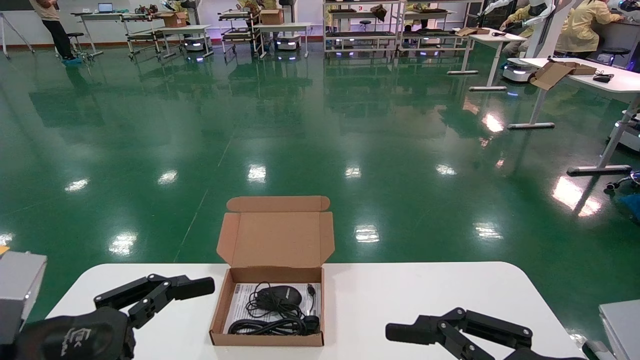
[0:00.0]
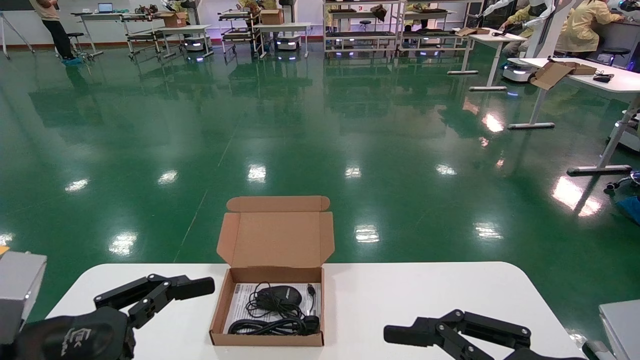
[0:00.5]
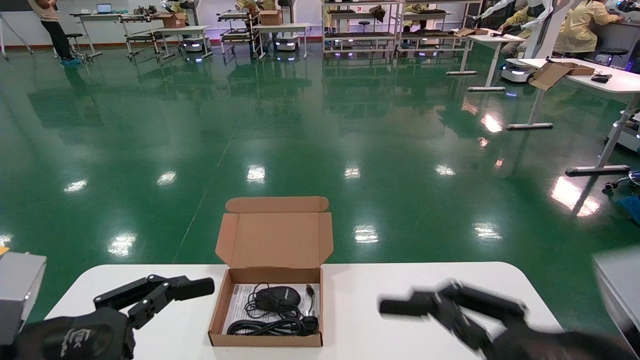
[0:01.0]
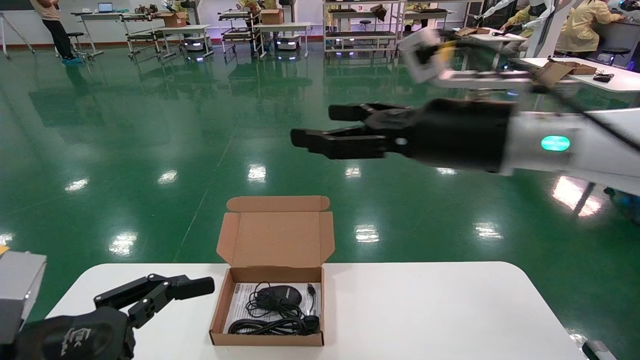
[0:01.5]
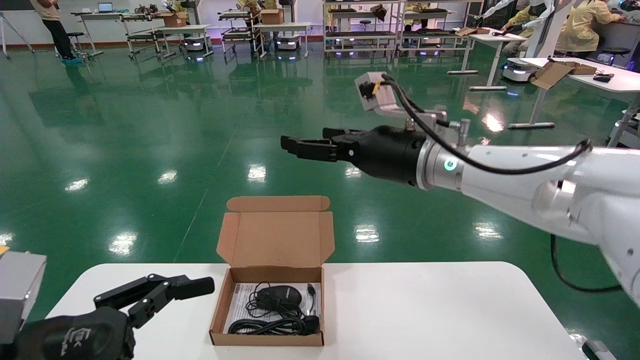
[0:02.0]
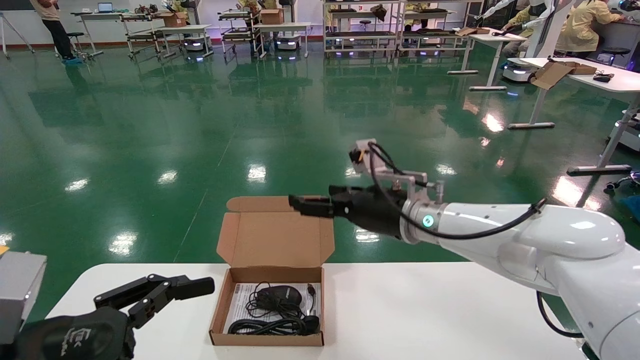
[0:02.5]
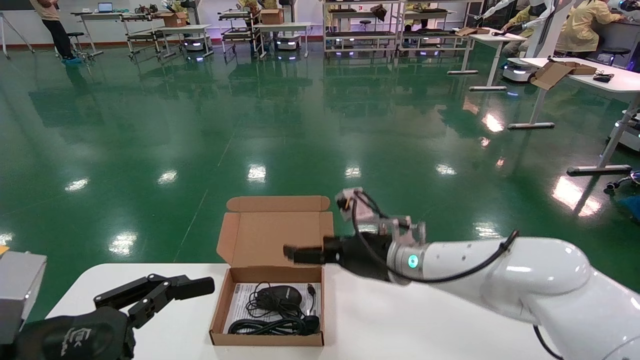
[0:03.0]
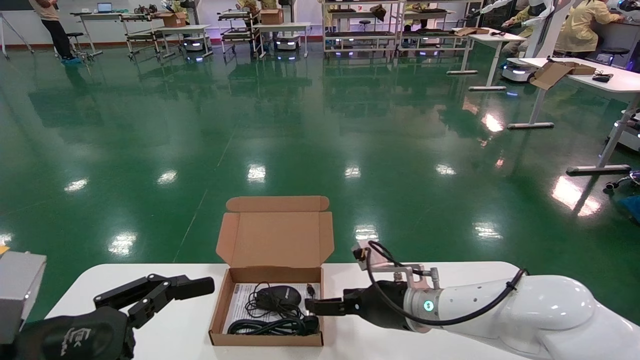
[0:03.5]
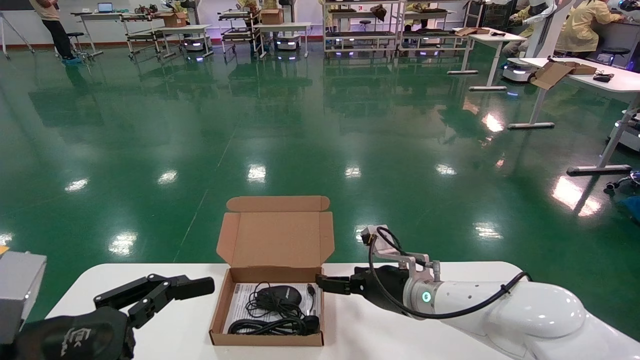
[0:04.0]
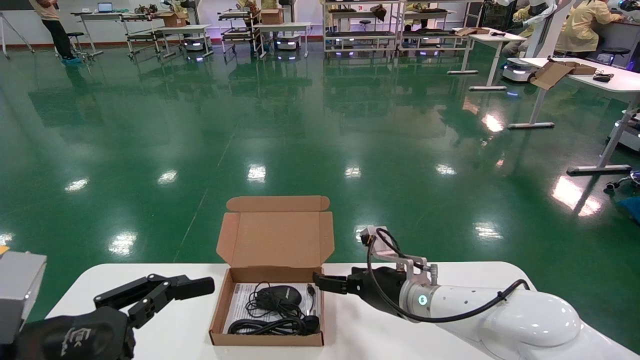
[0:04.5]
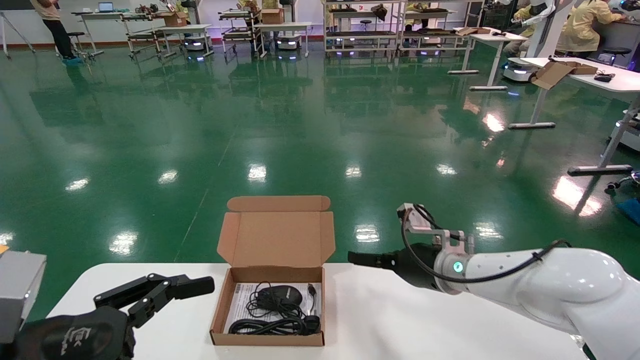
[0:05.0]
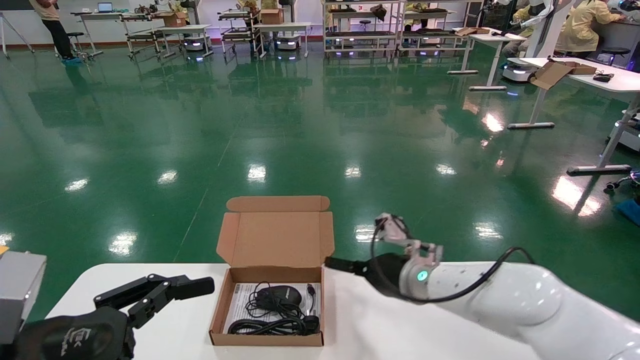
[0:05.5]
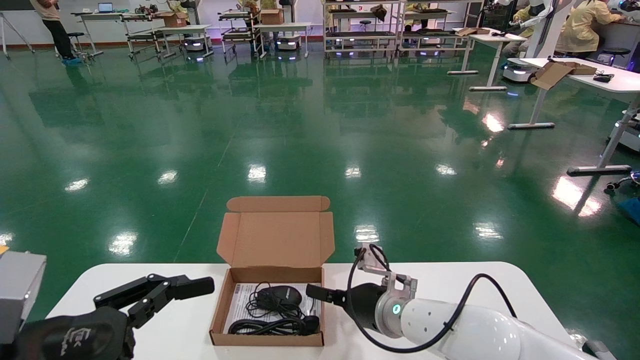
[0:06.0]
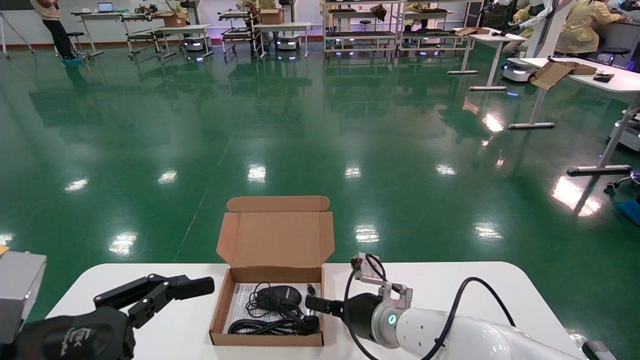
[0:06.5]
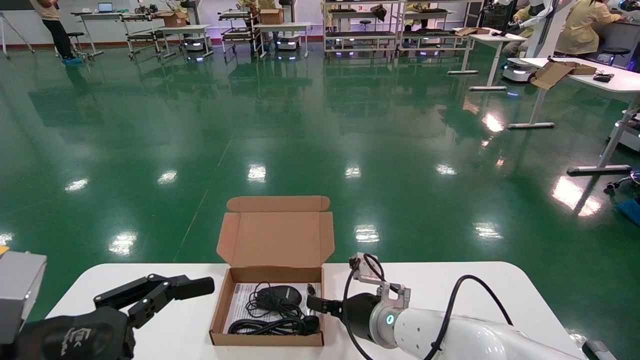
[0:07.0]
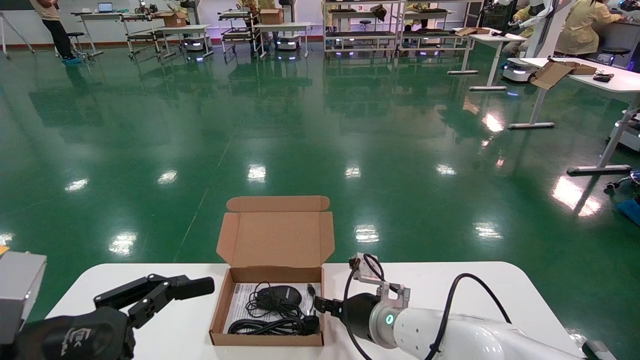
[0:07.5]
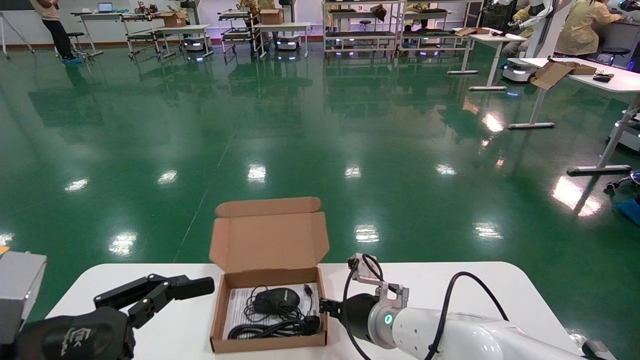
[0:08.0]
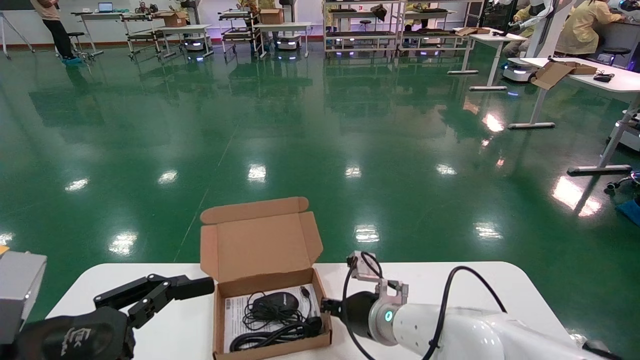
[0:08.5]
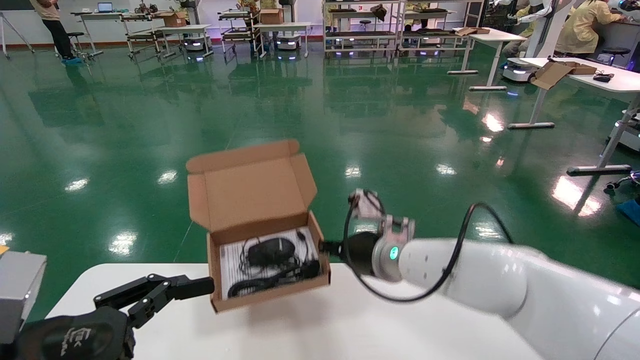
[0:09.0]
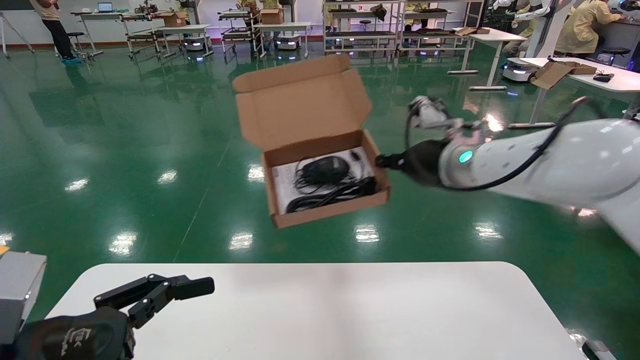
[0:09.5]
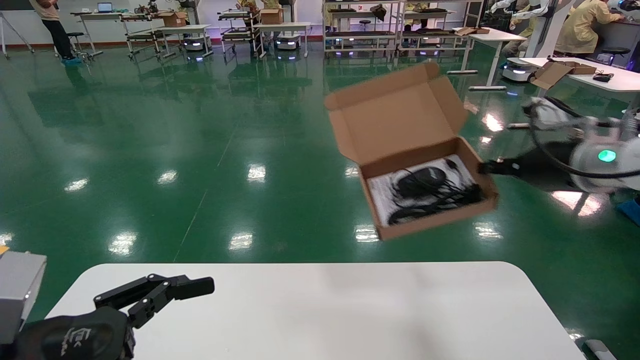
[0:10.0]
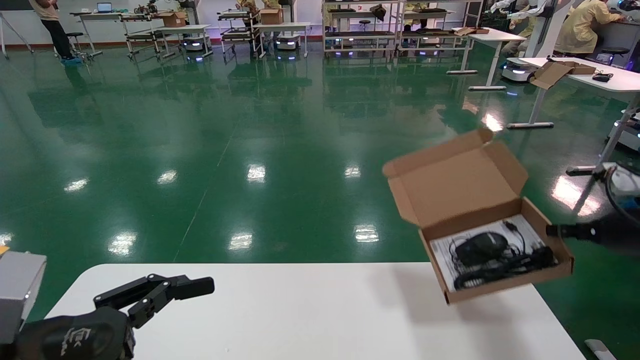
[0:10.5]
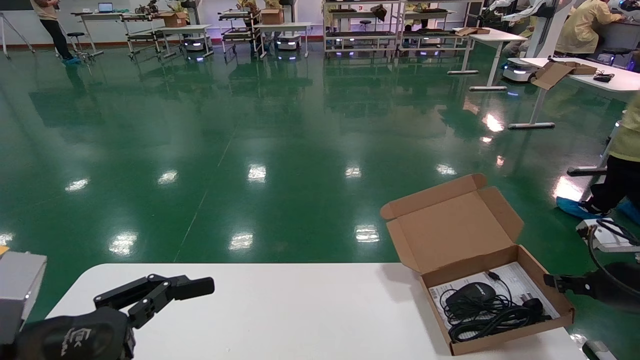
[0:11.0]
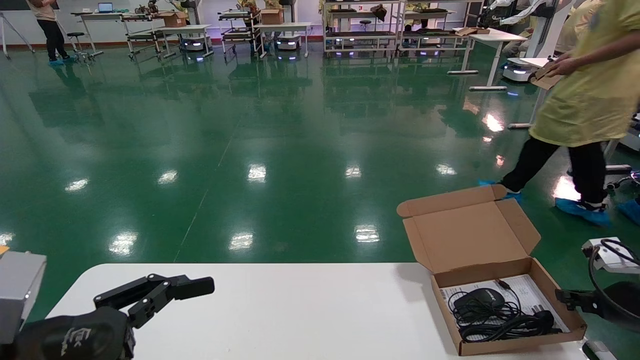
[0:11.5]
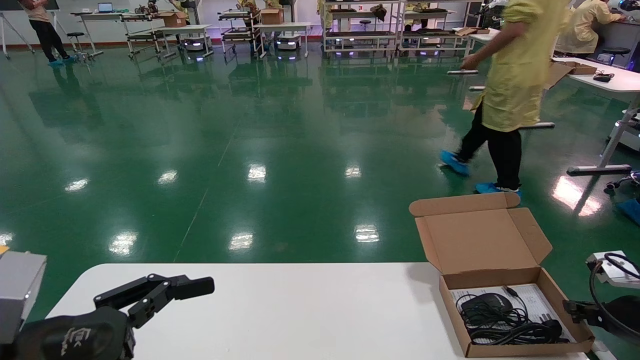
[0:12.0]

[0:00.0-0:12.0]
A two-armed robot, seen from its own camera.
Task of the whole recording: move the position of the storage box with accessories on the table.
Step, 0:01.5 to 0:07.5: Grab and pick up the open mouse box from the accessory packaging area.
0:00.0 to 0:02.0: The right gripper travels forward, upward and to the left by approximately 30 cm.
0:02.0 to 0:04.0: The right gripper is displaced downward by some 20 cm.
0:06.0 to 0:08.0: The right gripper closes its fingers.
0:08.0 to 0:10.0: The right gripper heads to the right and upward, covering roughly 35 cm.
0:10.0 to 0:12.0: The right gripper moves downward and to the right, approximately 25 cm.

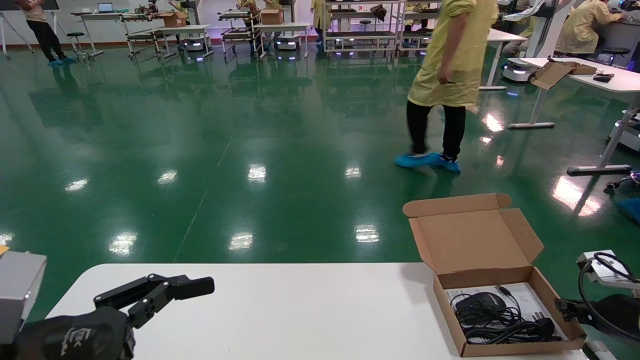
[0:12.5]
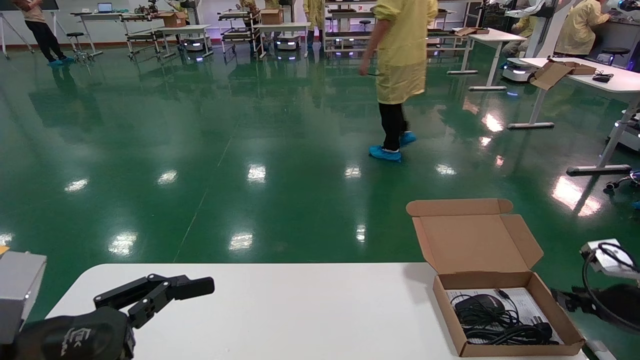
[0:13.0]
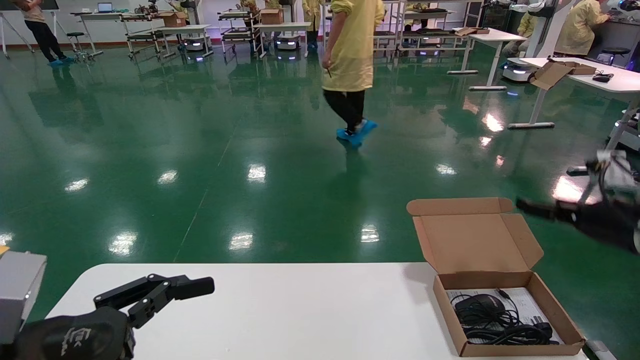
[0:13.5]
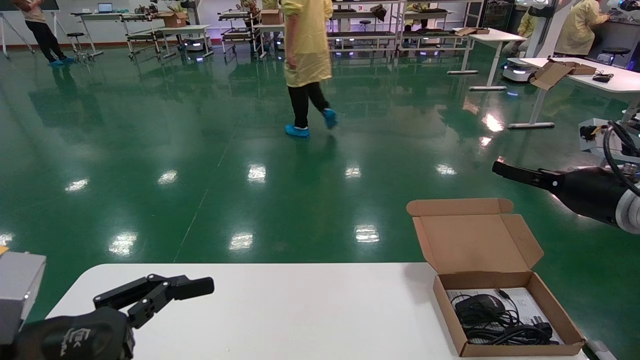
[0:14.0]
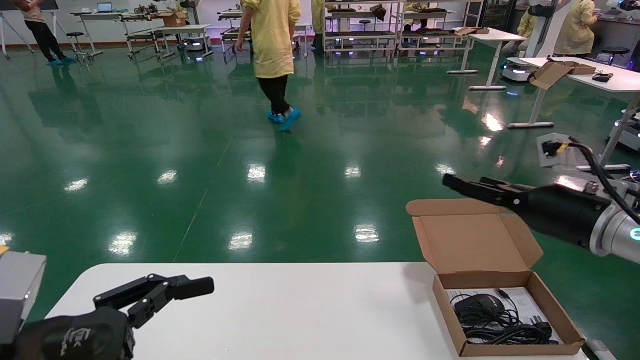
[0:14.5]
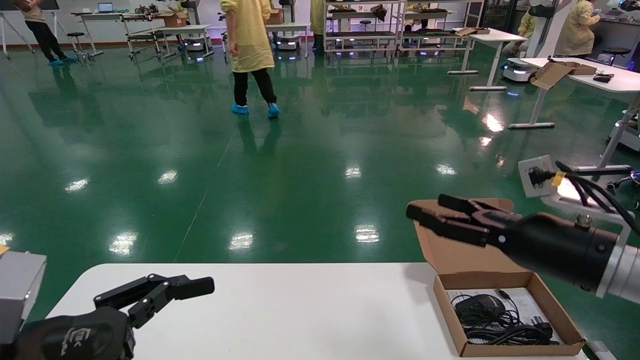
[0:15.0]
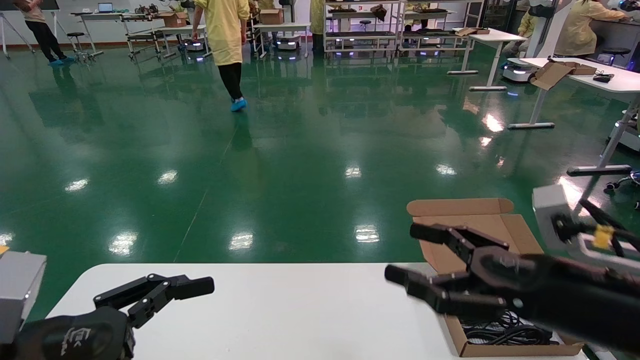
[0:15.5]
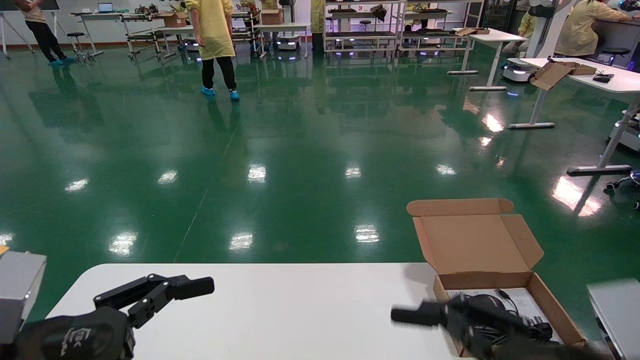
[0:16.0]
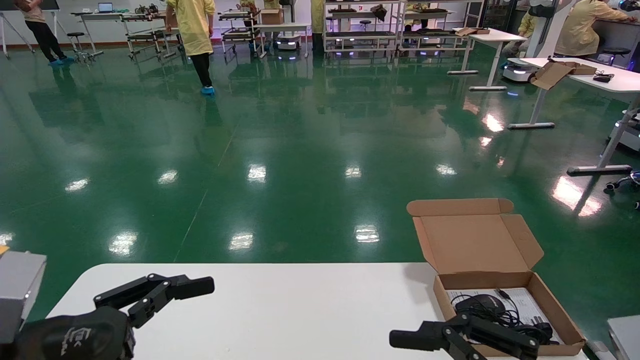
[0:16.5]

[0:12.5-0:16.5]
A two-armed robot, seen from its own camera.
Task of the whole recording: move the position of the storage box with accessories on the table.
0:12.5 to 0:14.5: The right gripper shifts approximately 20 cm upward and to the left, and opens its fingers.
0:14.5 to 0:16.5: The right gripper is displaced backward by about 25 cm.
